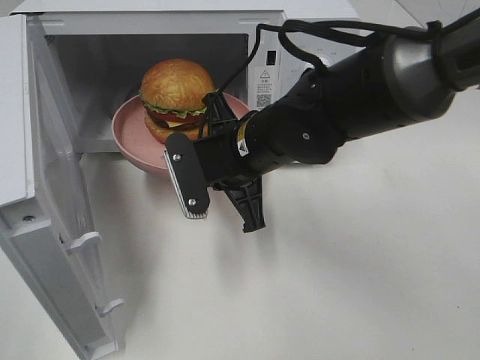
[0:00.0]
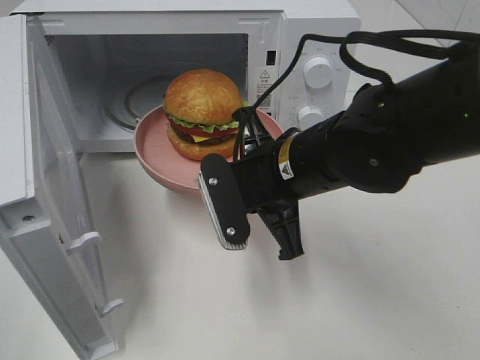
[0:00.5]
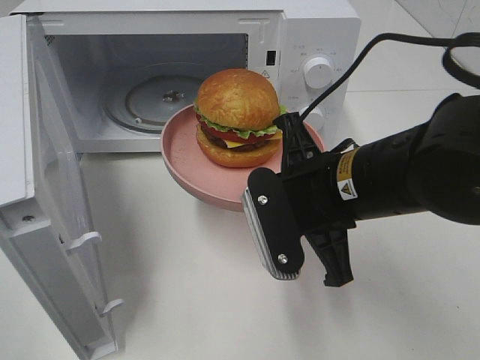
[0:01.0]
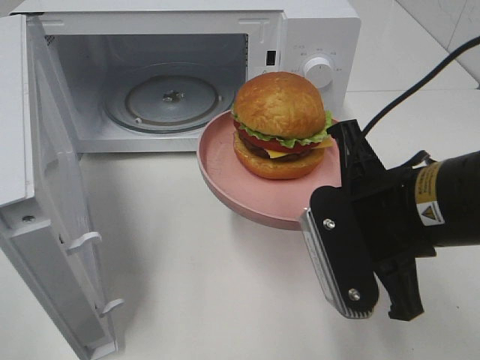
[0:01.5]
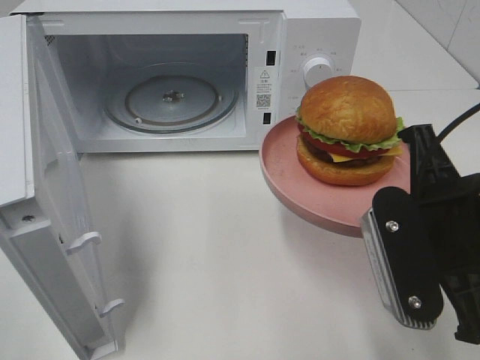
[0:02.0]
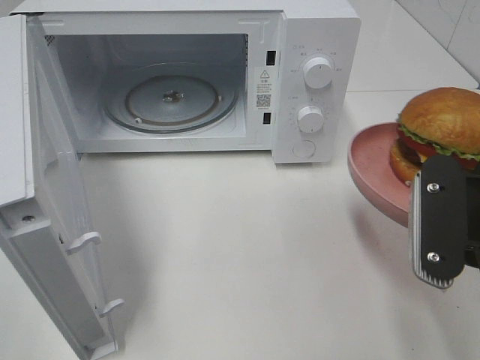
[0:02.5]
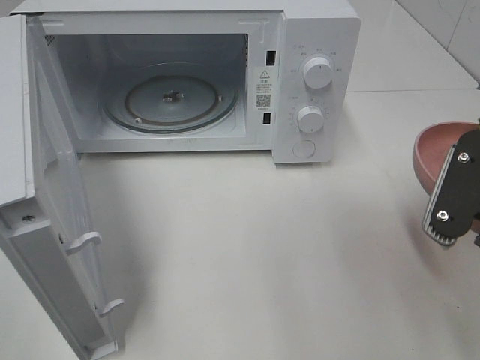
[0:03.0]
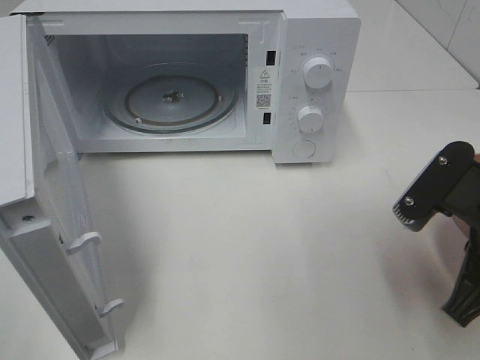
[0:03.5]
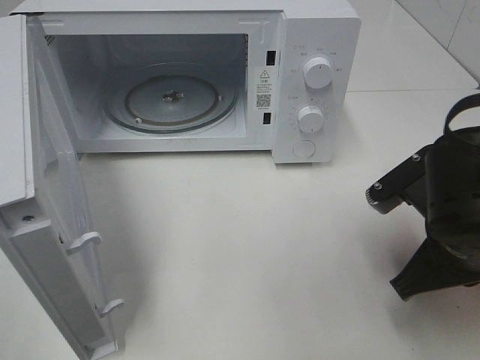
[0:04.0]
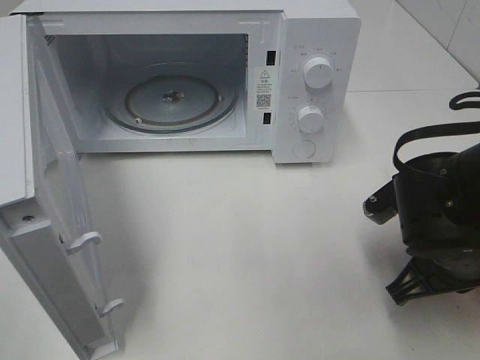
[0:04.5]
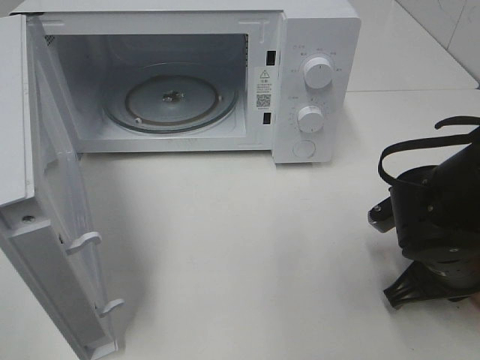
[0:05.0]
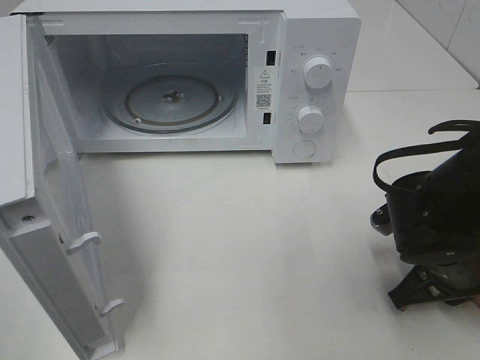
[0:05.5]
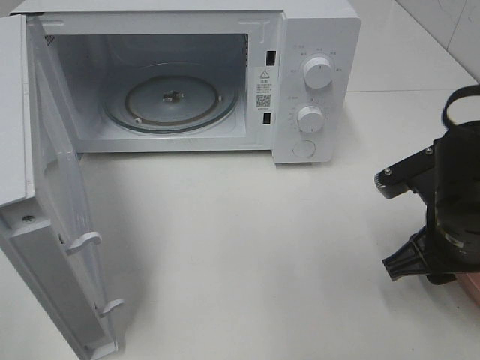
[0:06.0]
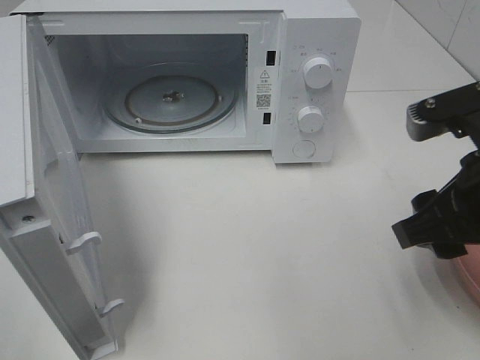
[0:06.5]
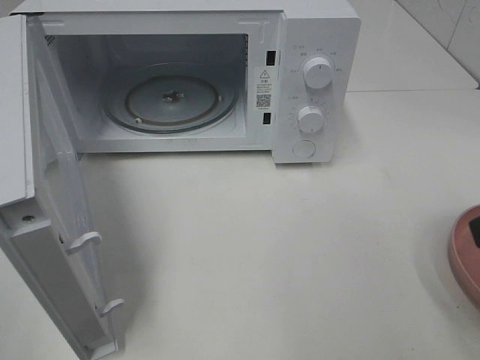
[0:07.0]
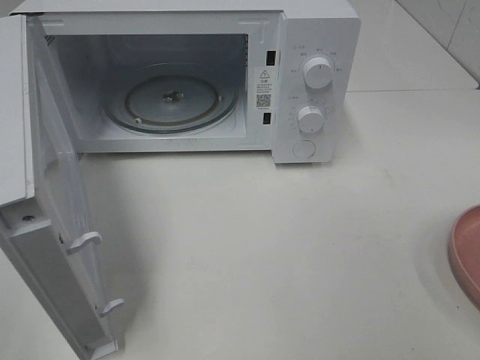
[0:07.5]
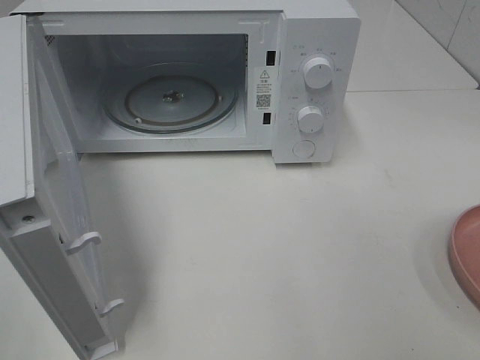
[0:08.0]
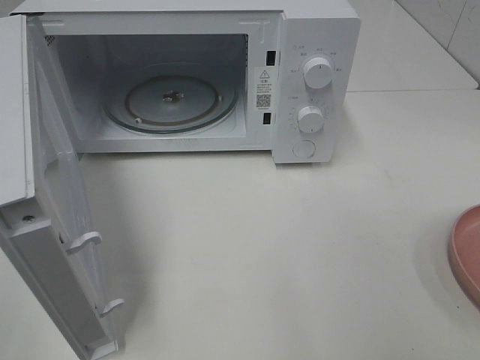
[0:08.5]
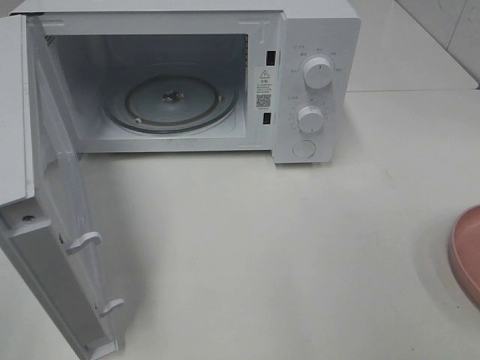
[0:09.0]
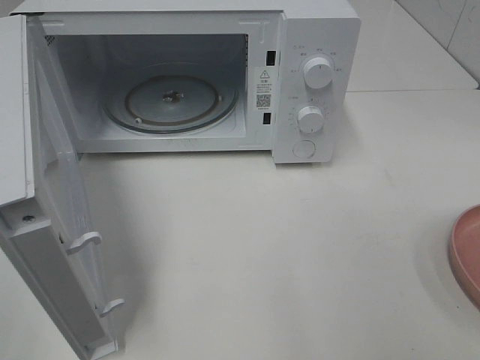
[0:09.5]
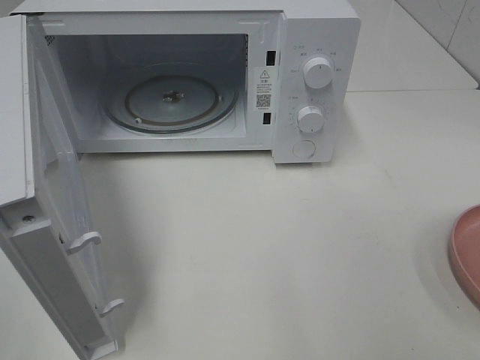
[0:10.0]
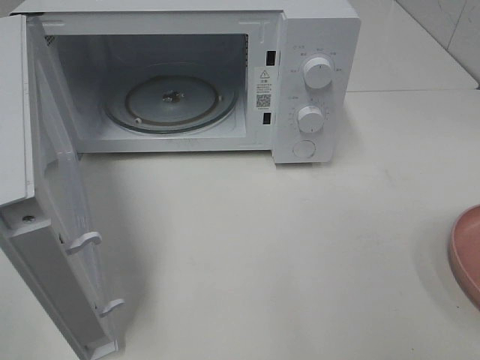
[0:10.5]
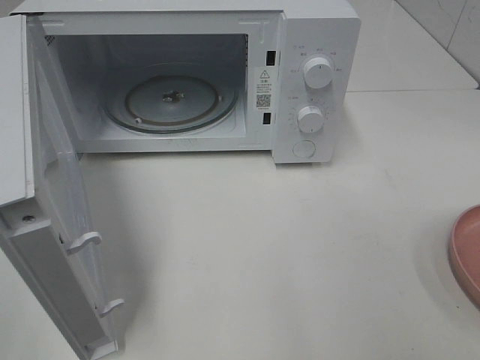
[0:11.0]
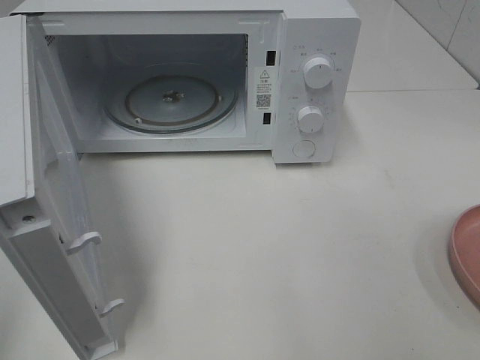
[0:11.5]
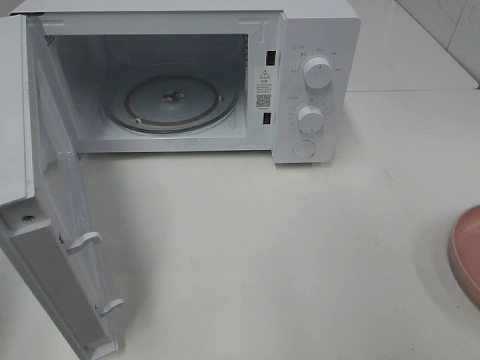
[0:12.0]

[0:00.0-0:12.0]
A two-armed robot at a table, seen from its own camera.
Task of the whole recording: Heat the burger.
Step, 0:00.0 to 0:05.5: Right hand: place the plate on the table.
0:00.0 to 0:02.0: The right gripper is displaced to the right, backward and upward by about 20 cm.
0:02.0 to 0:04.0: The right gripper moves downward, some 5 cm.
0:04.0 to 0:06.0: The right gripper opens its fingers.
0:06.0 to 0:08.0: The right gripper travels backward, upward and to the right by approximately 25 cm.

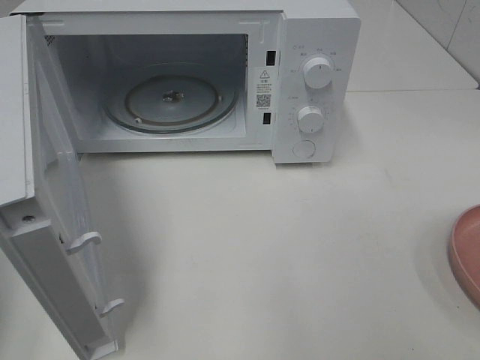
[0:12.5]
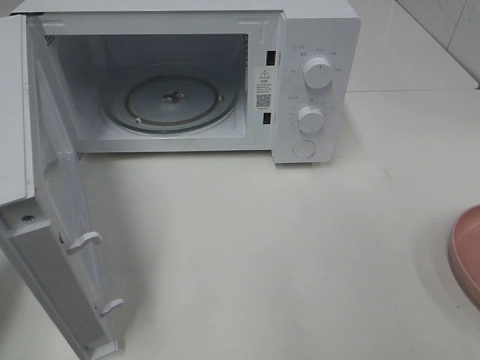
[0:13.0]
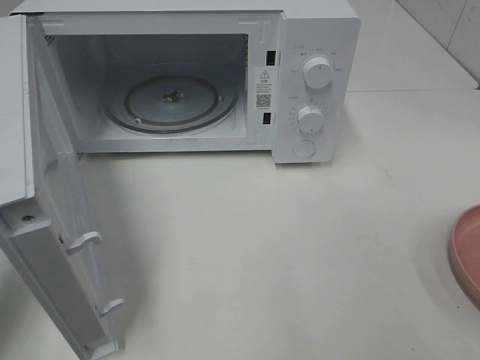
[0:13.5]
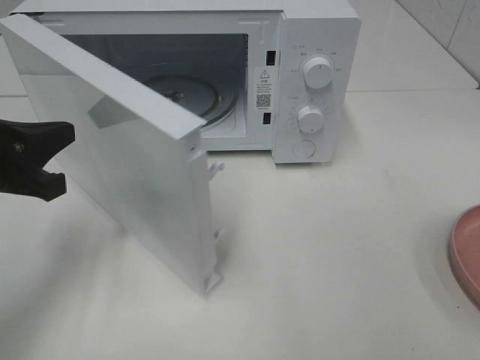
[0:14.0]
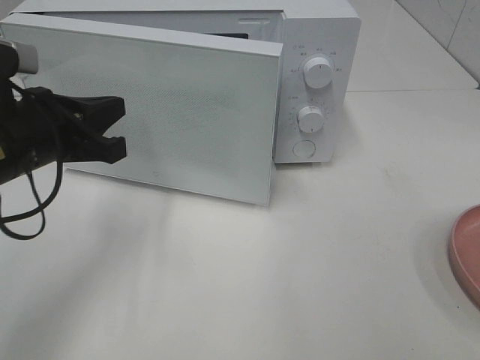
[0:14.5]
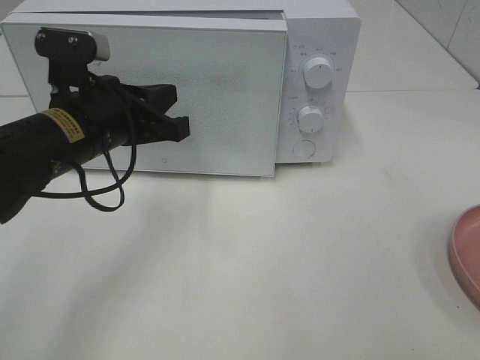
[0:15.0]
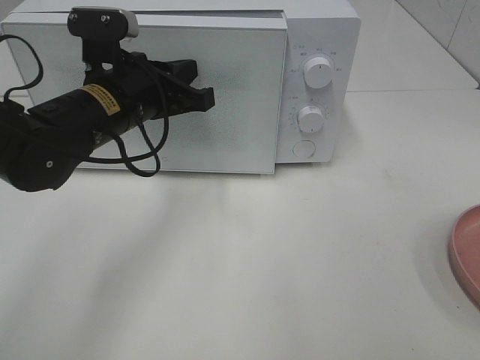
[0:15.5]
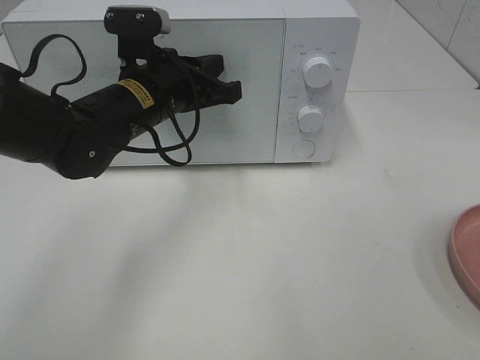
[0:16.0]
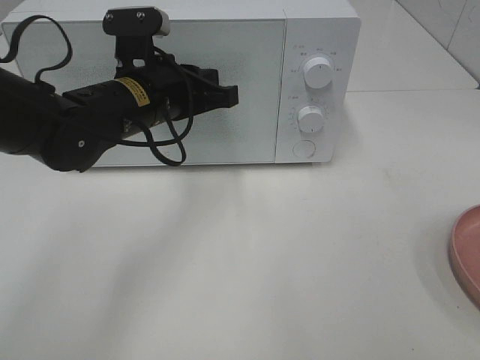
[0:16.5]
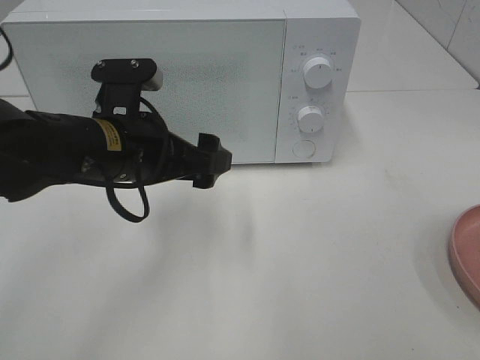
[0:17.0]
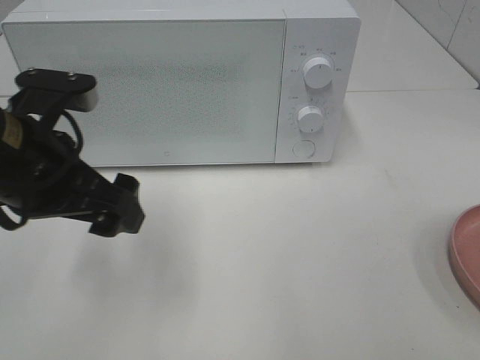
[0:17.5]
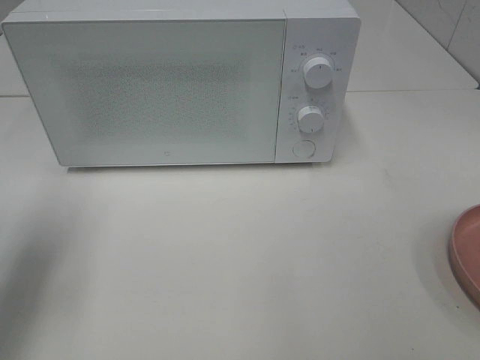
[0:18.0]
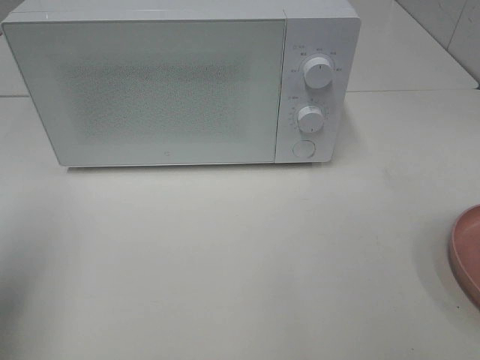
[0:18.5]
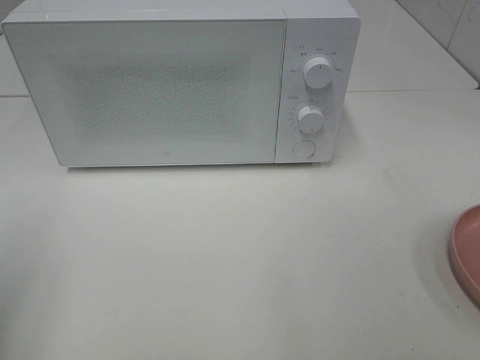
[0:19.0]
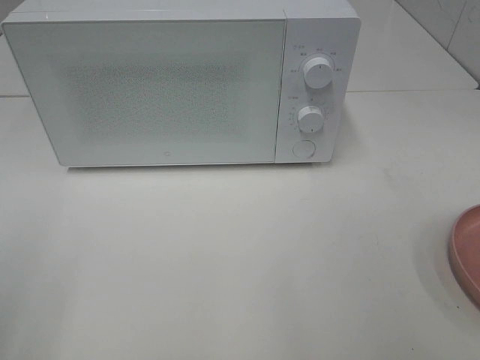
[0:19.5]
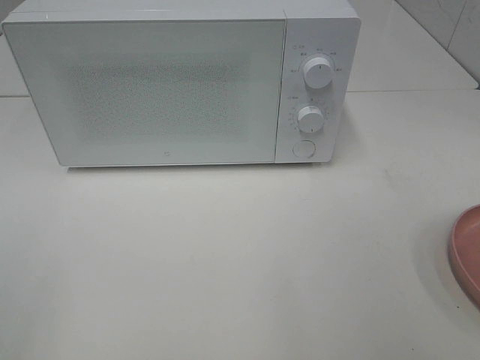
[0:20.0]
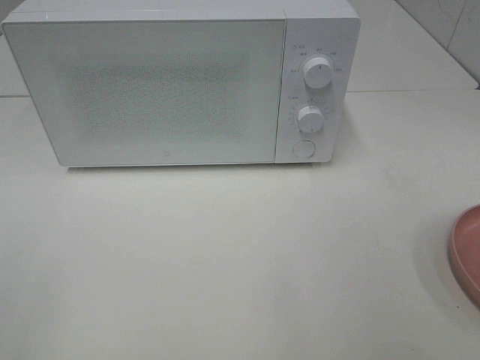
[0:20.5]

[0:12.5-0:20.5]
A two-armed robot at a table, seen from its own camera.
Task of the whole recording: Heat the burger.
Step, 0:12.5 to 0:16.0: Left hand: close the microwave door.
0:12.5 to 0:14.5: The left gripper travels forward and to the right by some 20 cm.
0:14.5 to 0:16.5: The left gripper moves to the right and forward, approximately 10 cm.
0:16.5 to 0:18.5: The left gripper travels to the left and backward by about 30 cm, and opens its fingers.
0:18.5 to 0:20.5: The left gripper moves backward, approximately 15 cm.

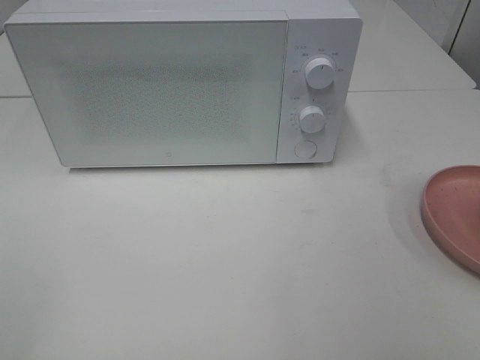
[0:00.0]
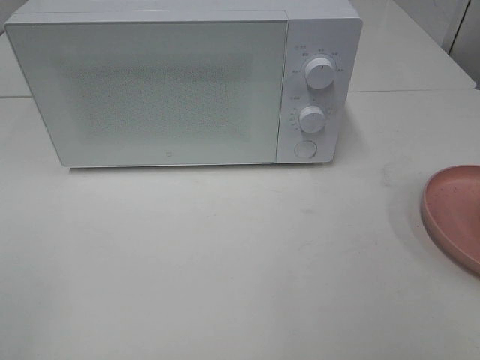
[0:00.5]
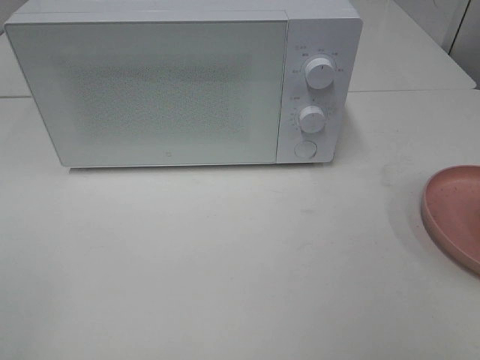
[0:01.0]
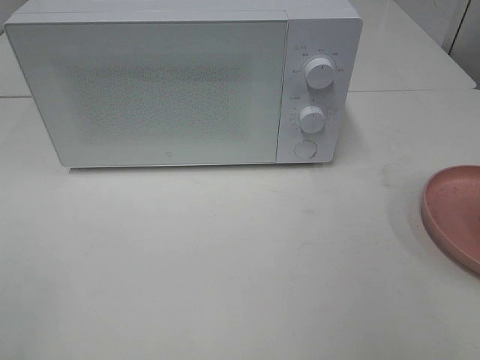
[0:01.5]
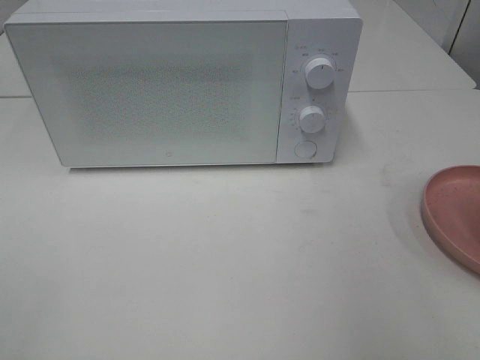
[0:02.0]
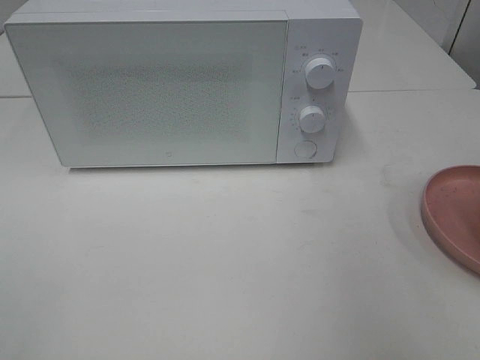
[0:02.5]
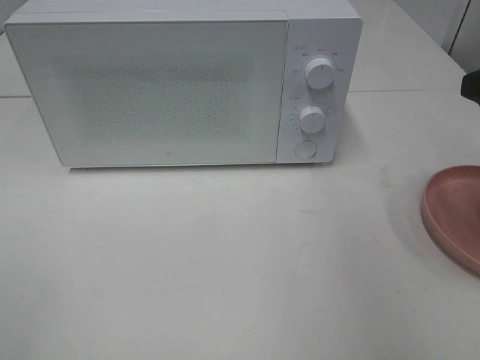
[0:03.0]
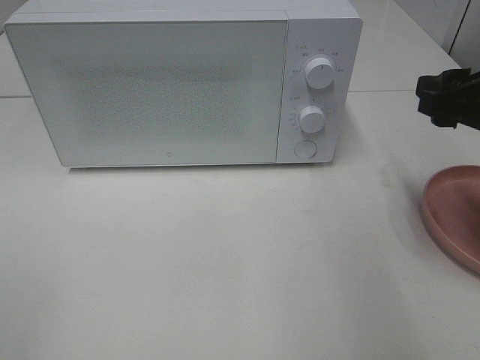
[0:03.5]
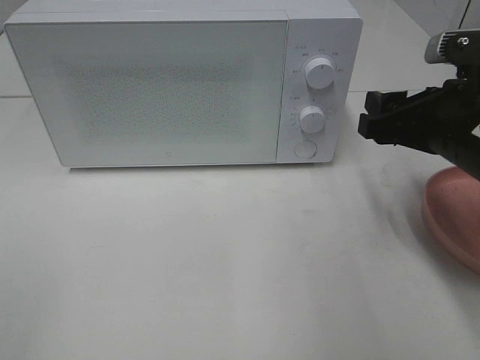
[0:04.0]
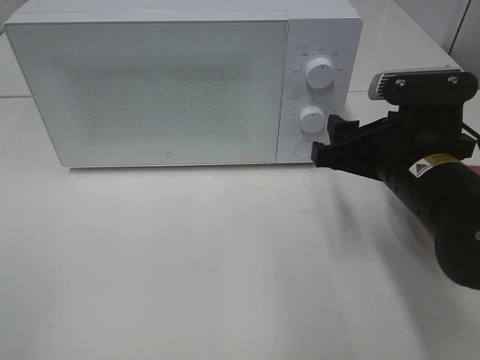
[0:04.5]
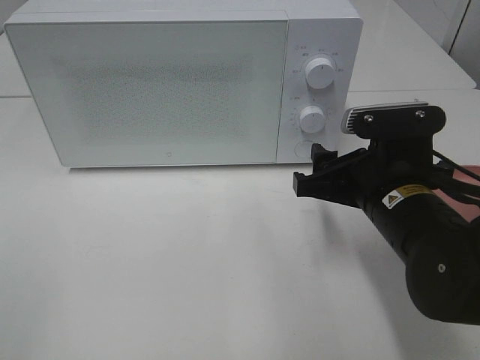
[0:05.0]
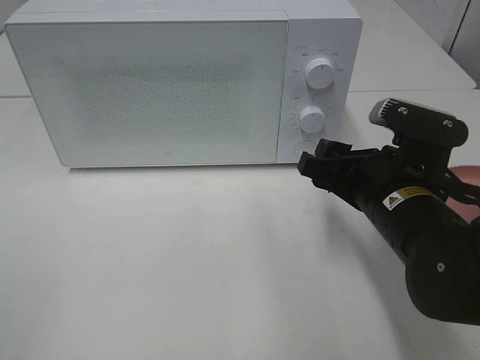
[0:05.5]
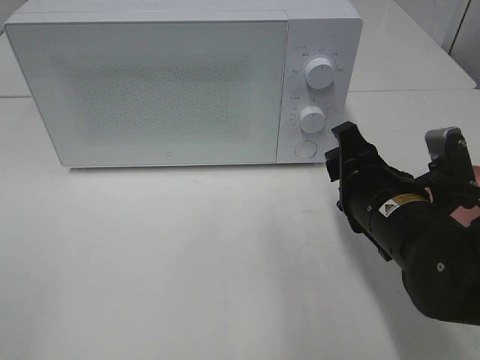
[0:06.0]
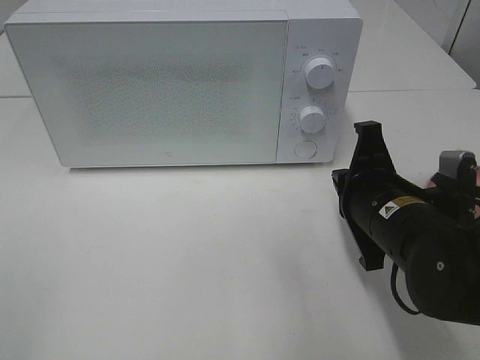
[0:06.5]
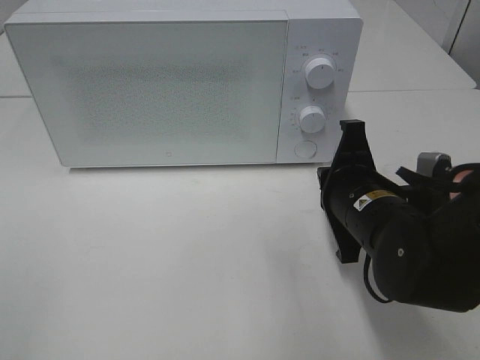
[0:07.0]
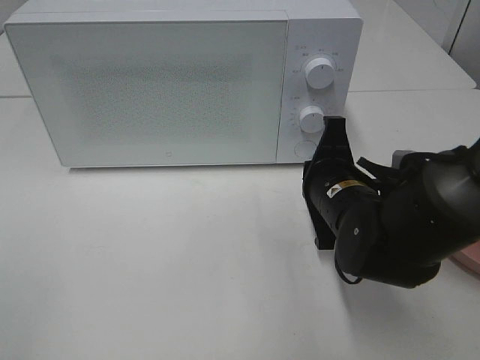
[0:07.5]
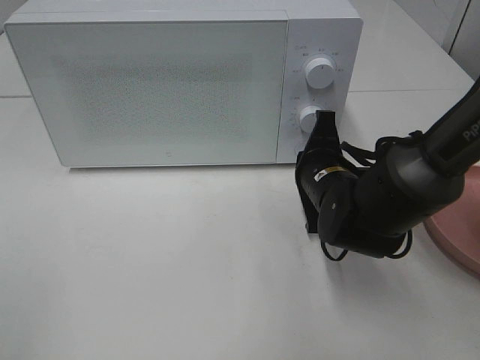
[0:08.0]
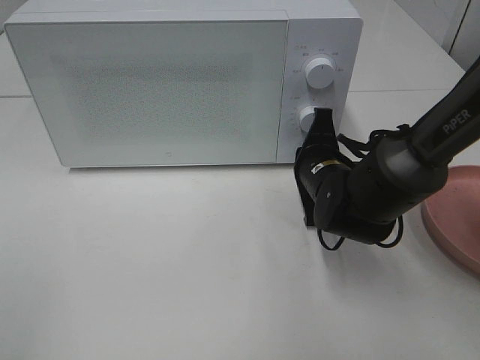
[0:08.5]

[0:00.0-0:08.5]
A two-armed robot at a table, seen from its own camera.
Task of the whole recording: Heat the burger.
0:02.0 to 0:04.0: The right gripper shifts about 20 cm forward, downward and to the left.
0:04.0 to 0:06.5: The right gripper goes approximately 10 cm downward and to the left, and closes up.
0:06.5 to 0:08.5: The right gripper heads forward, covering roughly 10 cm.
